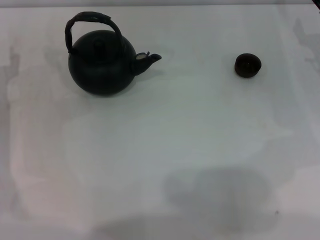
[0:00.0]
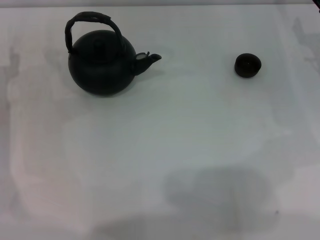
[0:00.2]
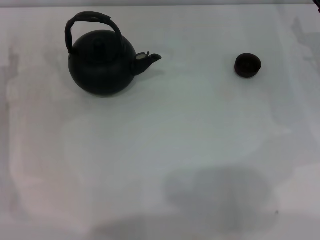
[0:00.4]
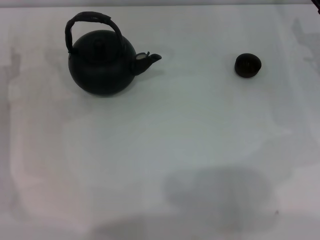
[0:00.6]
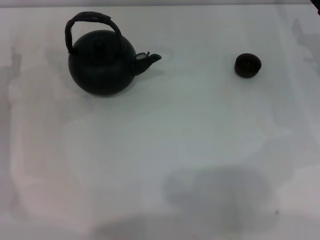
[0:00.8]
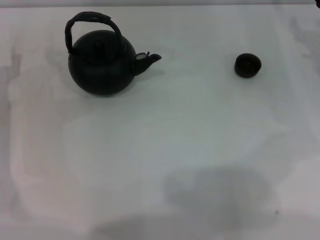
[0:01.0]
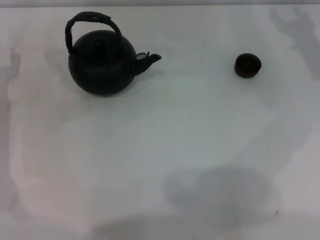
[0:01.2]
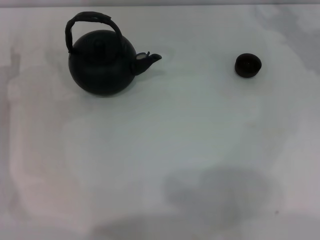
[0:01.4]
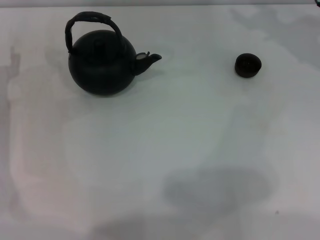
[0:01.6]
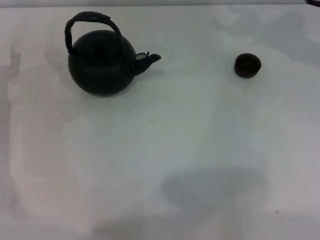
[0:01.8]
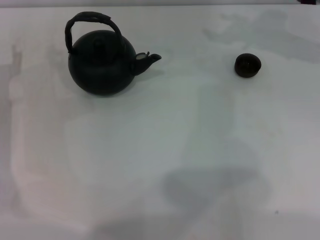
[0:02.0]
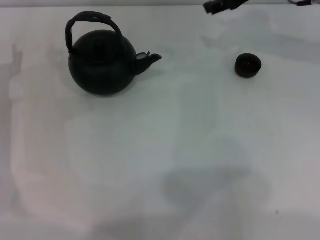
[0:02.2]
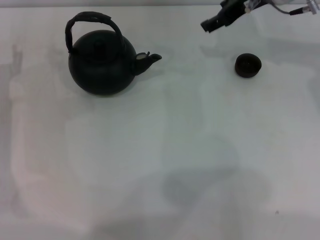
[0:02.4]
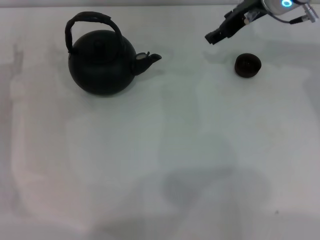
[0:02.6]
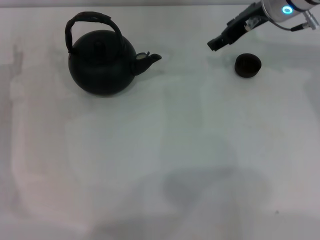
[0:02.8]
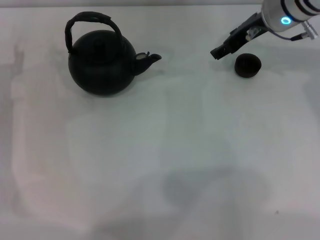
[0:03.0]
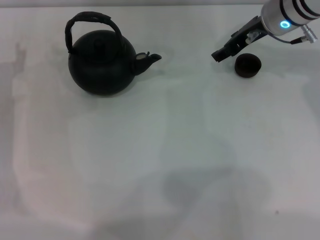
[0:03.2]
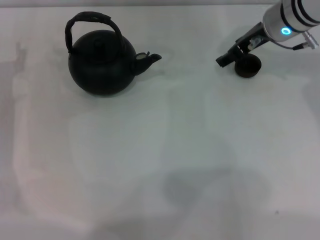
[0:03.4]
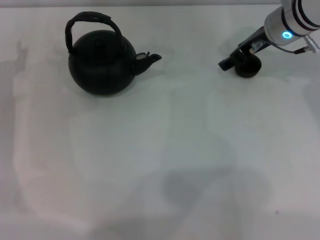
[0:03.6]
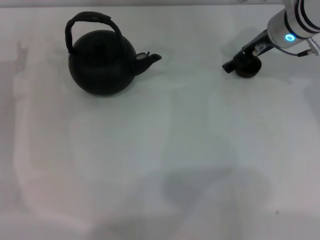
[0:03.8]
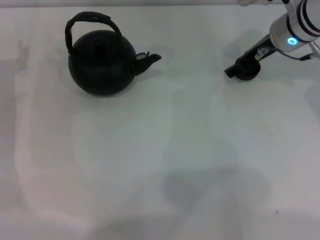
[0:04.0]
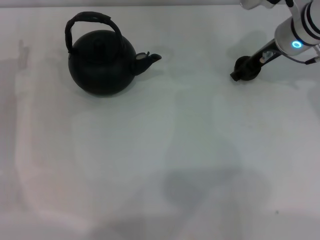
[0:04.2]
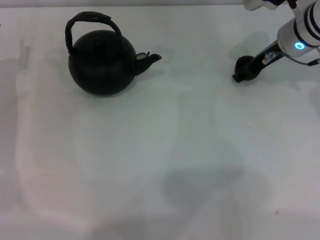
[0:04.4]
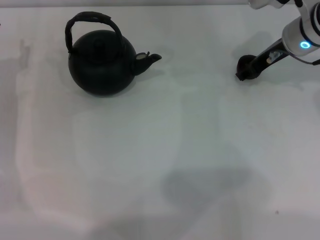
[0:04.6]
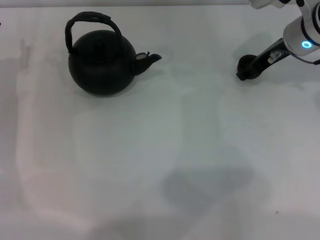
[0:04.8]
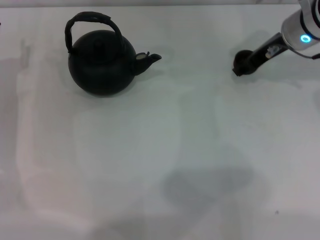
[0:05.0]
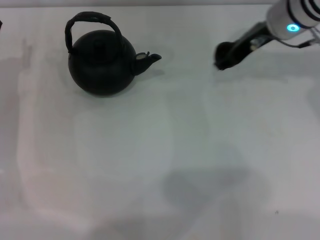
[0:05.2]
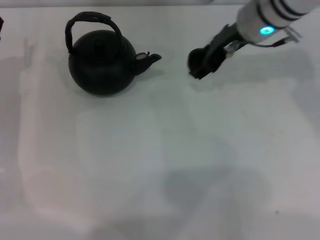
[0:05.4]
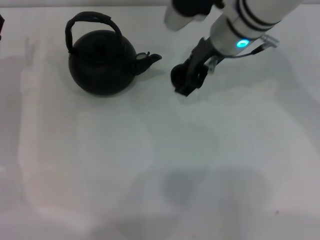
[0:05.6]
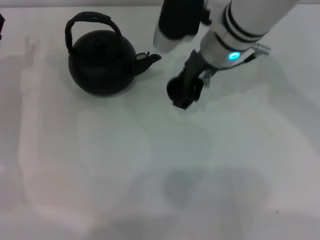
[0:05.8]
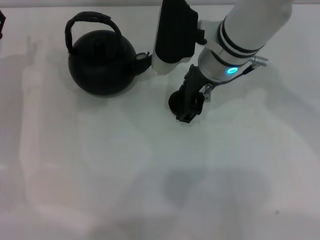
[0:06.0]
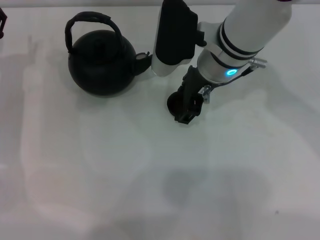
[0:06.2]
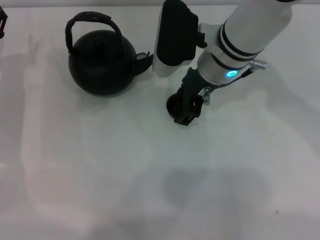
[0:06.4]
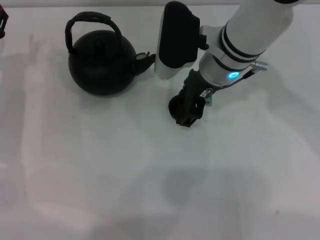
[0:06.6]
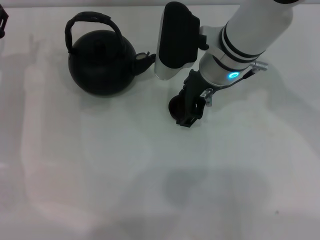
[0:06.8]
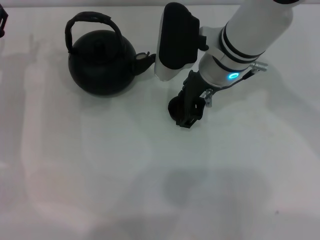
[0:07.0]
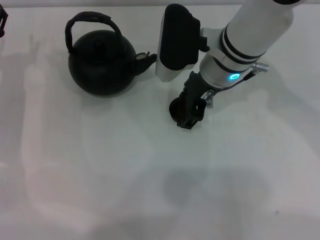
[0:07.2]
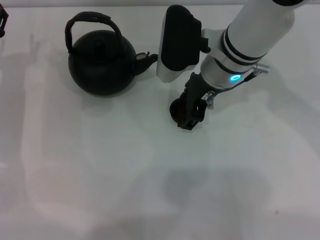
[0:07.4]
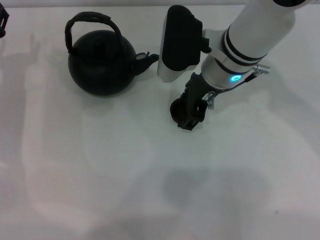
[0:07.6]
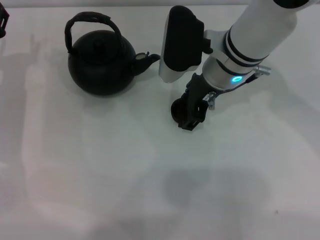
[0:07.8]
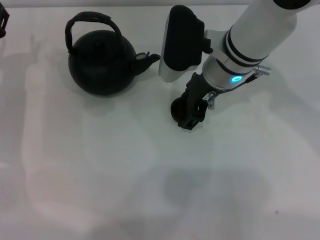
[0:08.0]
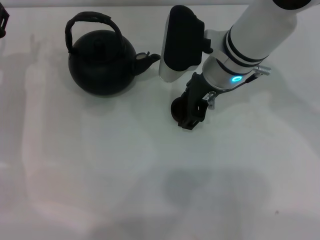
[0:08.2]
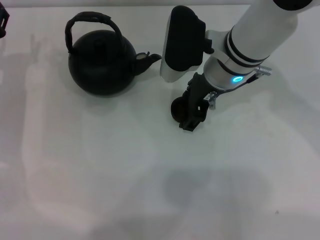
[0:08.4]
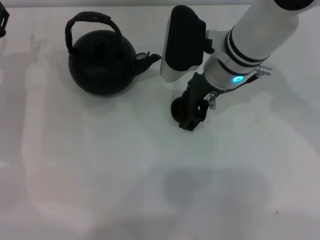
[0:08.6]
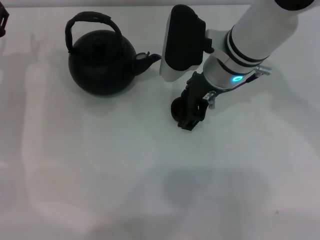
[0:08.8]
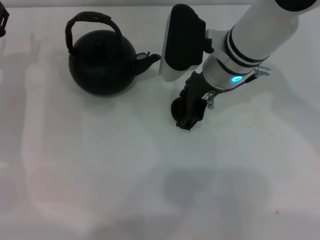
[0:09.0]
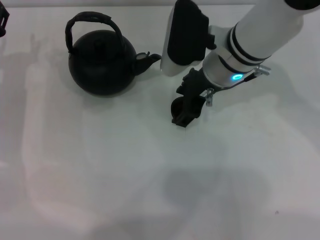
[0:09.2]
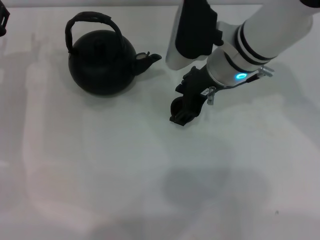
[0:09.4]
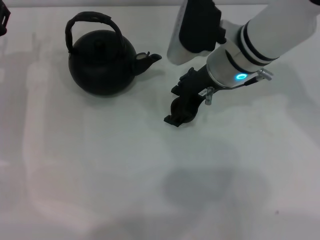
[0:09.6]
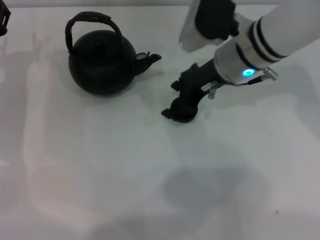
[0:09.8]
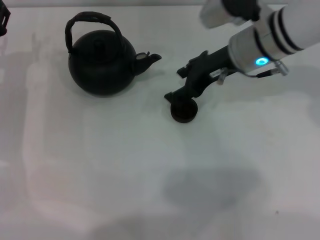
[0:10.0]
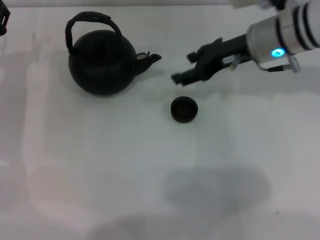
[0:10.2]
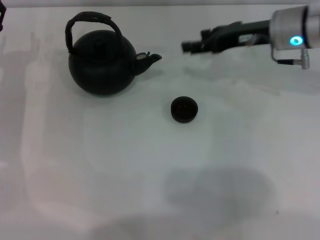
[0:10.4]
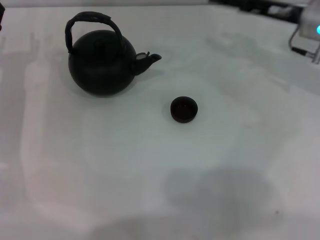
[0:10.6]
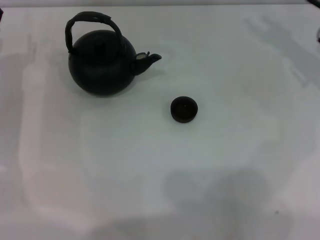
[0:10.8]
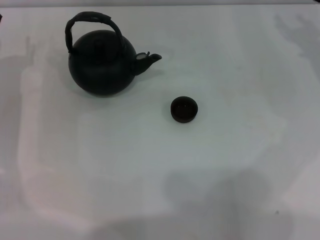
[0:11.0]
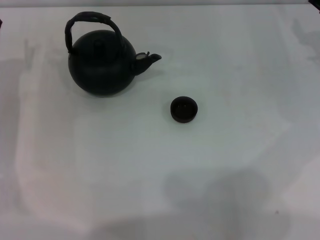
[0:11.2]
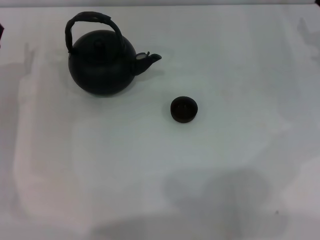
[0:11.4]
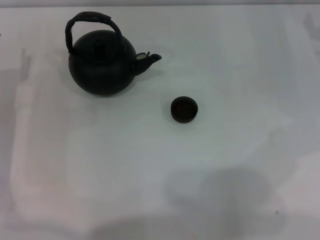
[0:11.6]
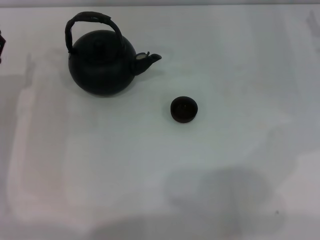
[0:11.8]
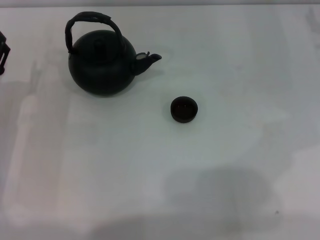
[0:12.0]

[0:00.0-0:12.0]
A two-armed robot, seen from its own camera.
Task of the whole recording: Grasp the handle of the teapot with one hand and pour tea into the teacup.
Step, 0:00.0 to 0:04.8: Pick up the teacup with the right gripper.
Step, 0:05.0 to 0:10.2: Place the teacup in the center of view with the right gripper.
0:01.6 to 0:03.0: The right gripper moves to the left, approximately 10 cm.
0:03.0 to 0:04.4: There are only small adjustments of the grippers.
0:04.4 to 0:06.0: The right gripper moves to the left, roughly 15 cm.
0:06.0 to 0:07.6: Both grippers stay put.
0:07.6 to 0:09.0: Both grippers stay about where they are.
0:09.0 to 0:10.4: The right gripper travels to the right by approximately 10 cm.
0:10.4 to 0:12.0: The right gripper shifts roughly 15 cm to the right; the left gripper goes about 5 cm backward.

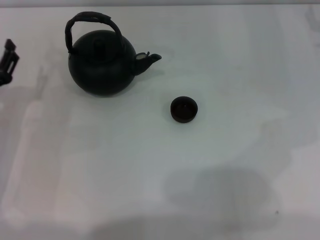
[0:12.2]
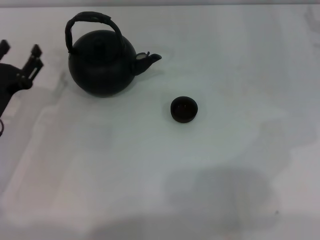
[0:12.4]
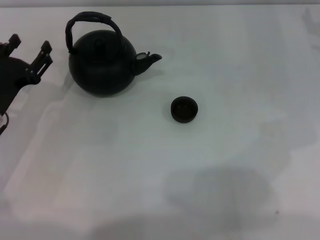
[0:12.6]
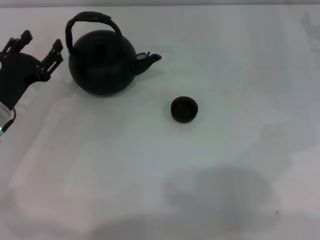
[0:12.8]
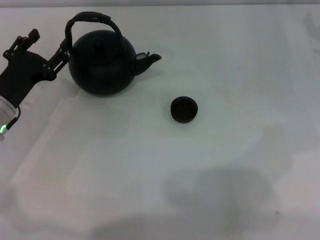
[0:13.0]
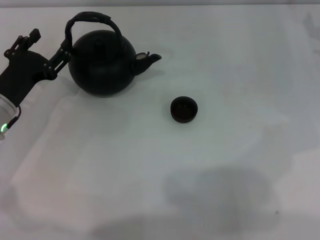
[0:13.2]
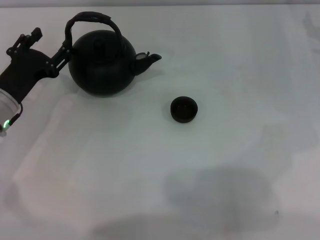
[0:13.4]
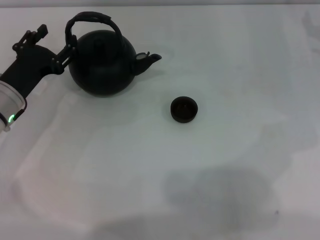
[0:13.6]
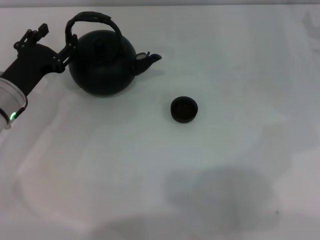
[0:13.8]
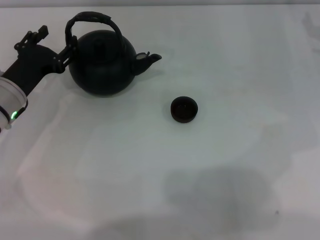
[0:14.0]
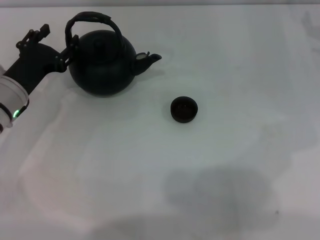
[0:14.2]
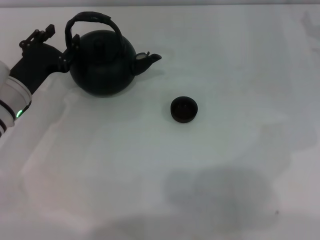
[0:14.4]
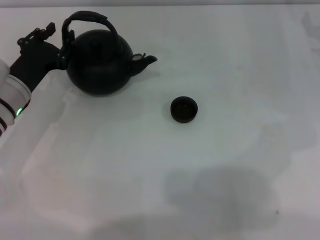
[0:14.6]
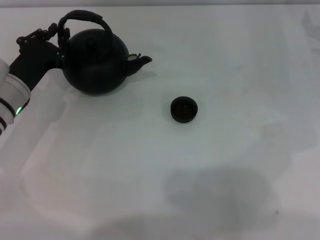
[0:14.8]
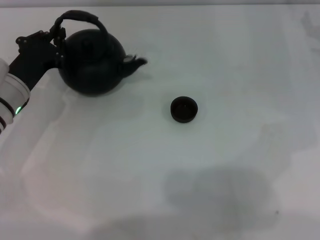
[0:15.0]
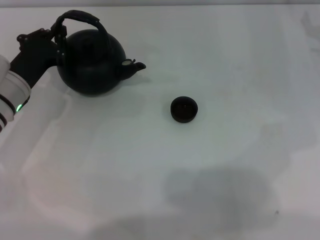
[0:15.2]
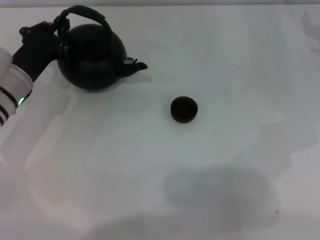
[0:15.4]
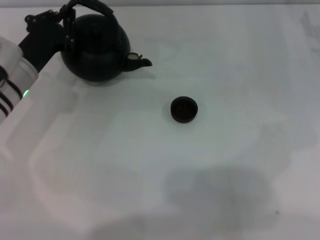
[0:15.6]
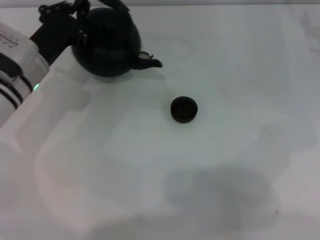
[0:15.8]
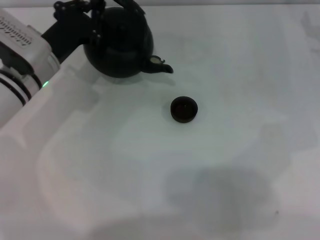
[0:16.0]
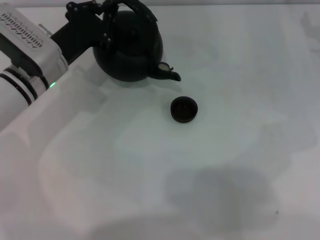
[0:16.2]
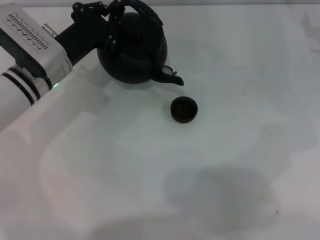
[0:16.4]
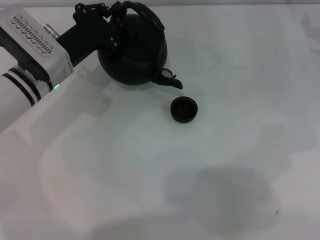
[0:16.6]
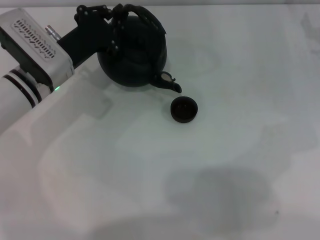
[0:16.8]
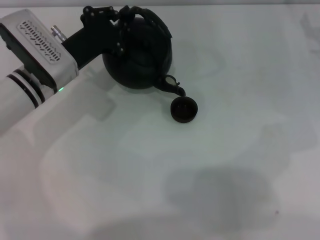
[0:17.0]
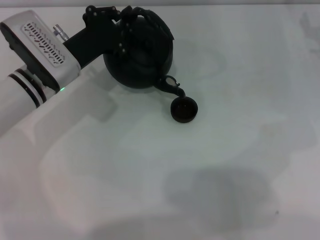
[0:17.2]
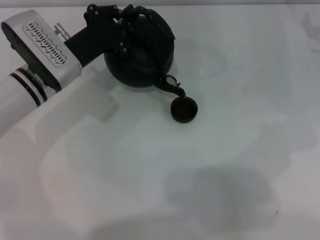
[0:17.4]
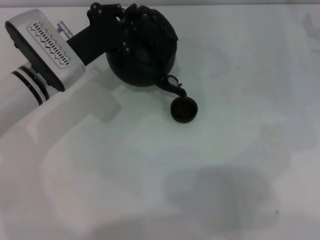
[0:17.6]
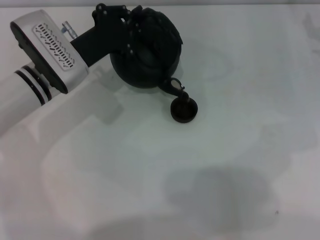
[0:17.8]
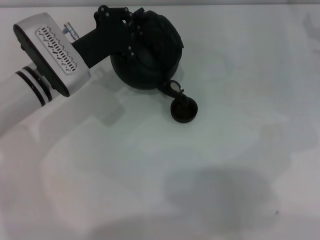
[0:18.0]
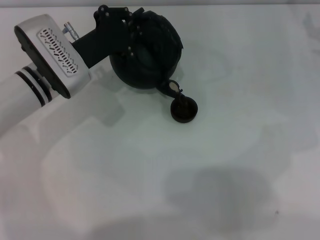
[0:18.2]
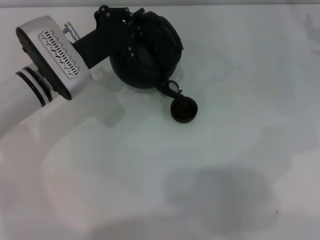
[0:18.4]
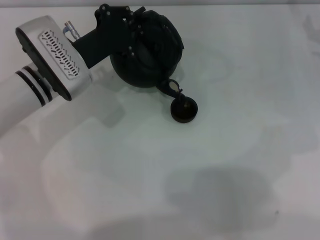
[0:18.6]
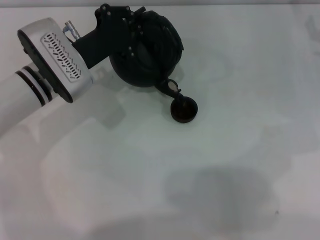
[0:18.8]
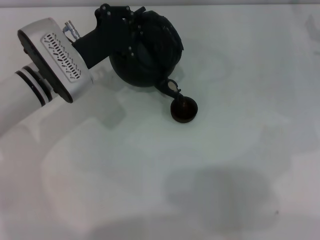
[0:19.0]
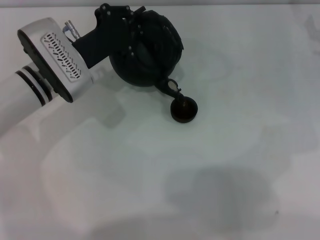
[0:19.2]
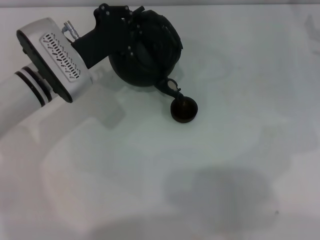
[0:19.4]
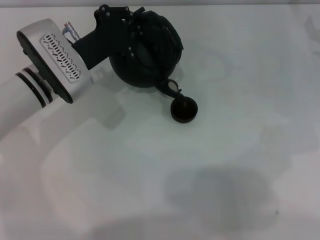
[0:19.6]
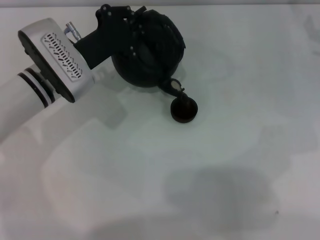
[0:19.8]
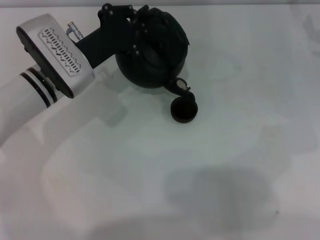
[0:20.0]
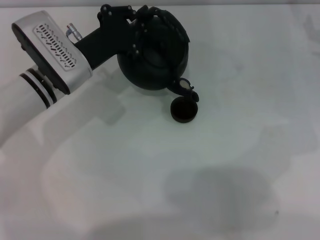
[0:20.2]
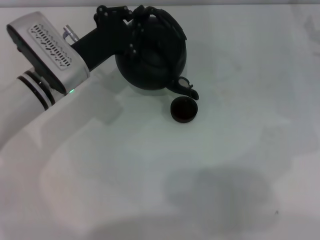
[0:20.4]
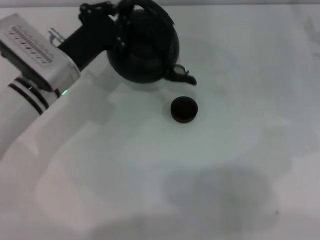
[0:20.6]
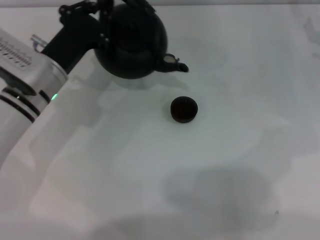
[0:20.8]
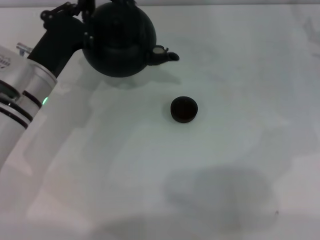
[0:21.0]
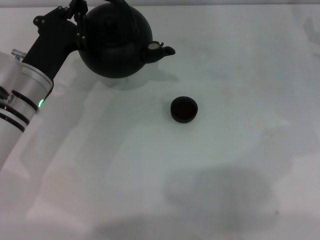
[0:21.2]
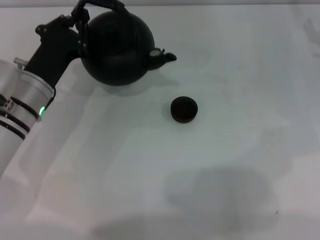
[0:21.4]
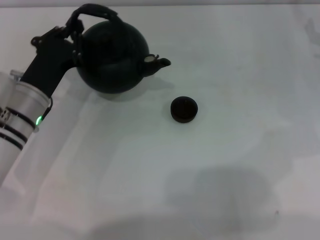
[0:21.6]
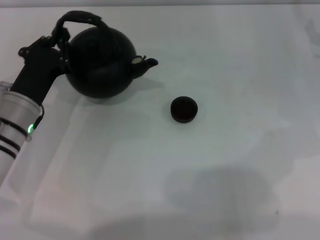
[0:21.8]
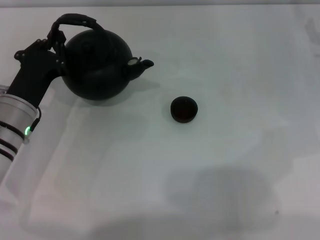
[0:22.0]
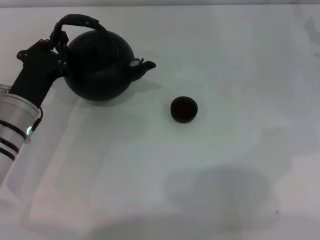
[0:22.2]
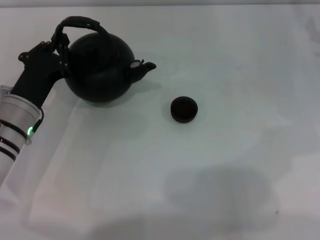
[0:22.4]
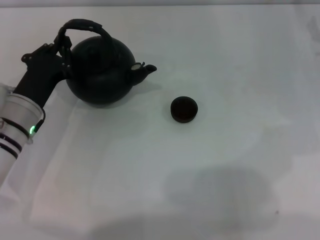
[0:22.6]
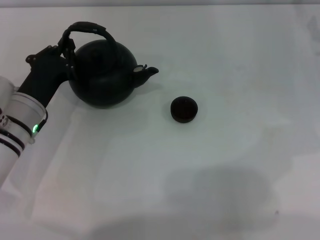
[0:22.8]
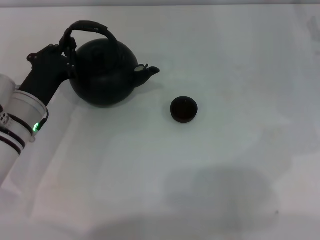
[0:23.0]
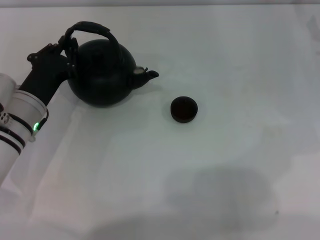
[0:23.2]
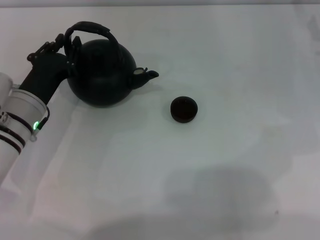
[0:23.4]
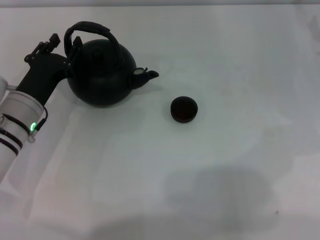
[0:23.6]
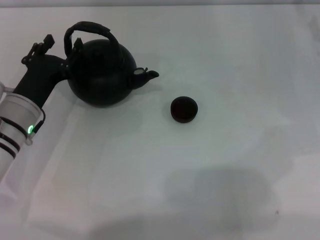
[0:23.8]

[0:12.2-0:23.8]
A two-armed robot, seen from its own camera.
Task of the whole recording: Grasp the handle of the teapot with one hand and pour tea into the teacup.
Step, 0:12.2 to 0:15.6: Pick up the teapot with the left gripper.
Step, 0:15.8 to 0:20.4: Pour tea into the teacup with the left gripper.
0:12.2 to 0:13.6: The left gripper moves forward, approximately 5 cm.
0:13.6 to 0:15.0: The left gripper closes its fingers.
0:15.0 to 0:16.6: The left gripper is displaced to the right by some 5 cm.
0:16.6 to 0:19.4: The grippers make only small movements.
0:21.0 to 0:22.4: The left gripper moves some 5 cm.
0:22.4 to 0:23.8: The left gripper opens its fingers.
